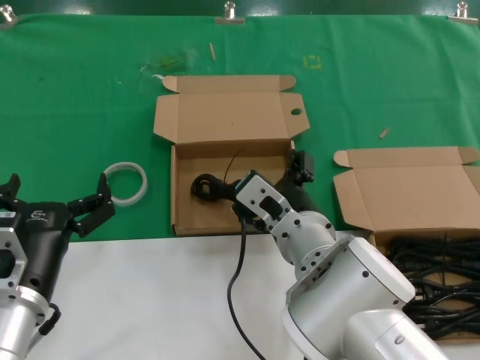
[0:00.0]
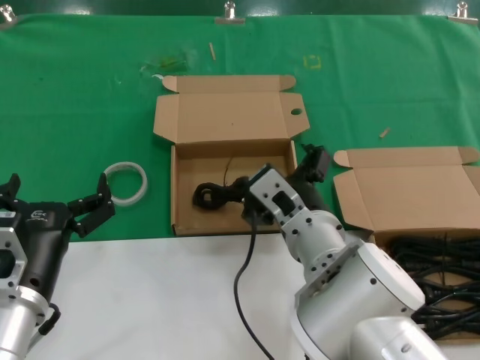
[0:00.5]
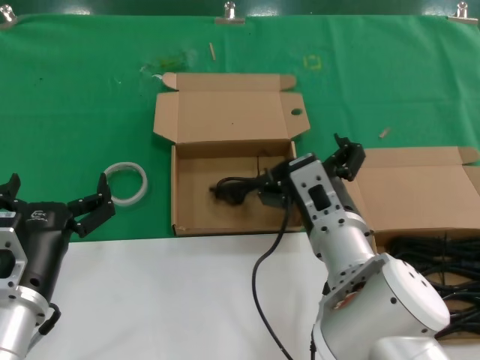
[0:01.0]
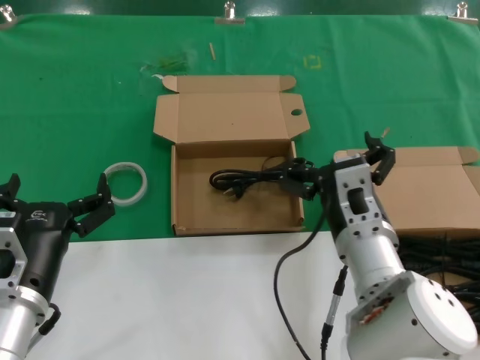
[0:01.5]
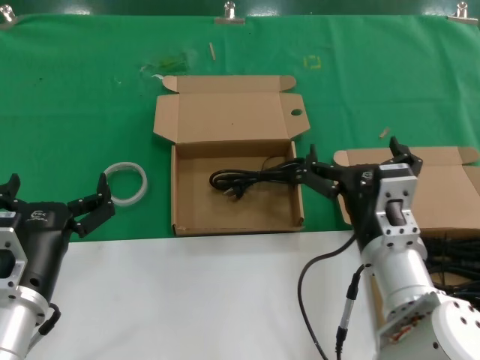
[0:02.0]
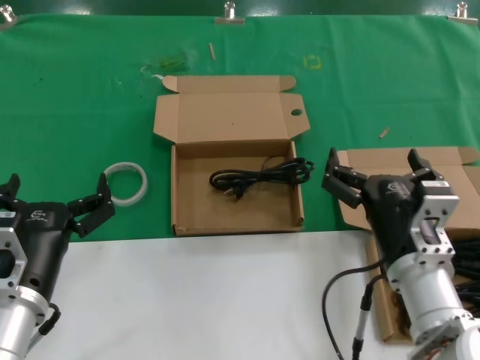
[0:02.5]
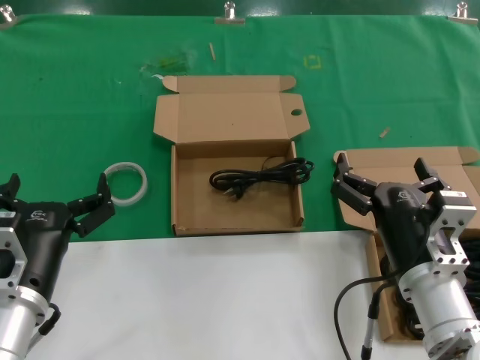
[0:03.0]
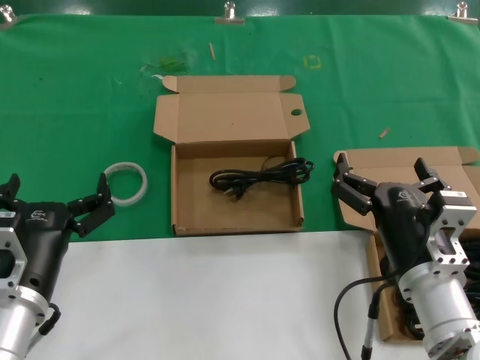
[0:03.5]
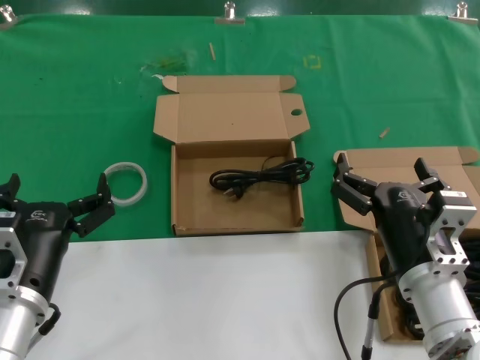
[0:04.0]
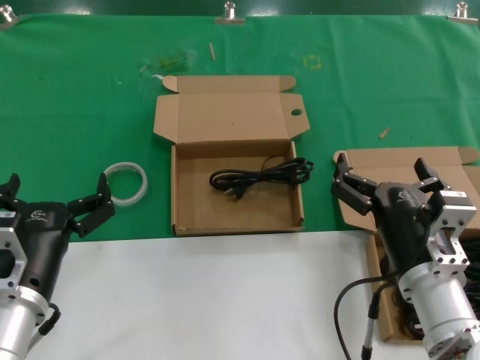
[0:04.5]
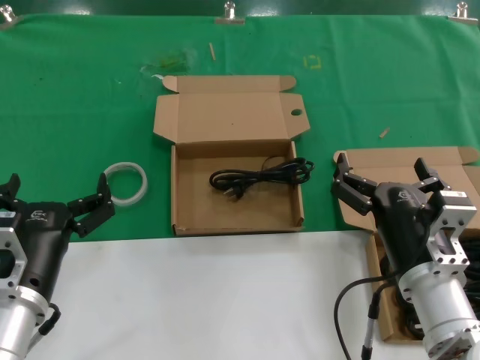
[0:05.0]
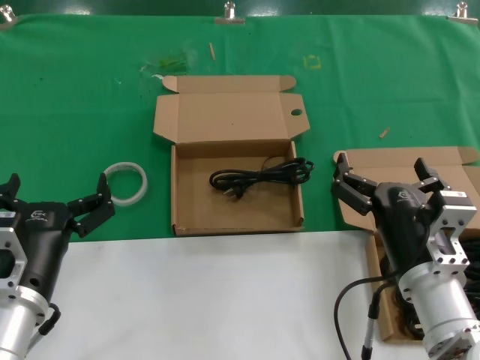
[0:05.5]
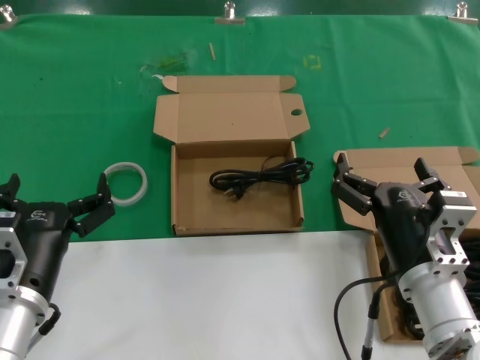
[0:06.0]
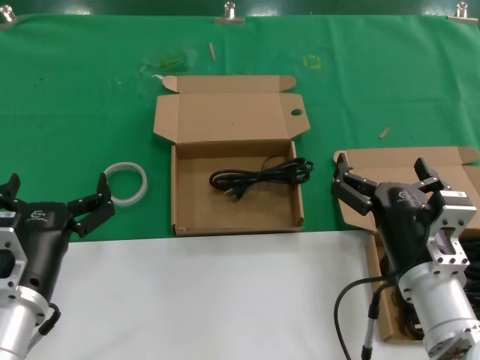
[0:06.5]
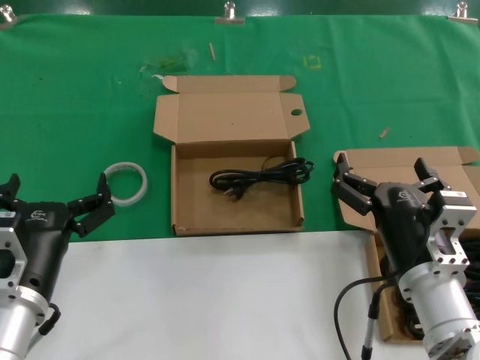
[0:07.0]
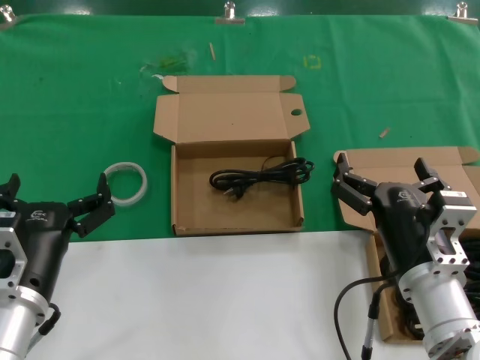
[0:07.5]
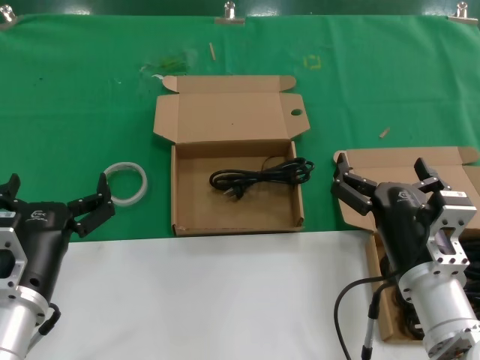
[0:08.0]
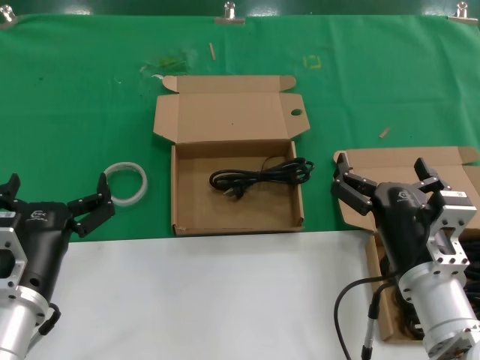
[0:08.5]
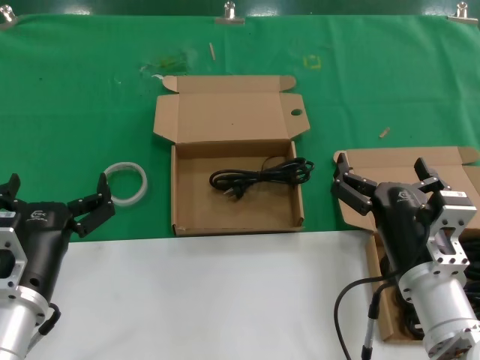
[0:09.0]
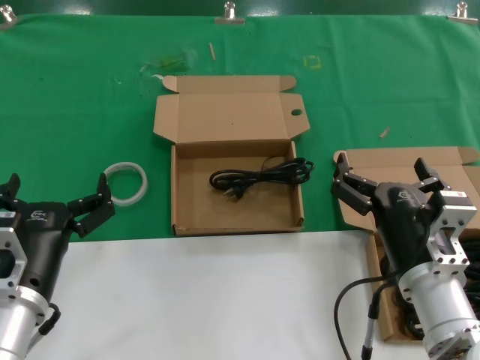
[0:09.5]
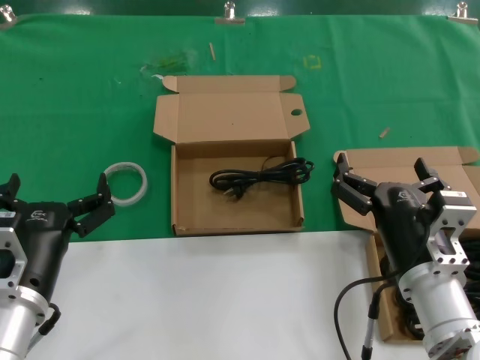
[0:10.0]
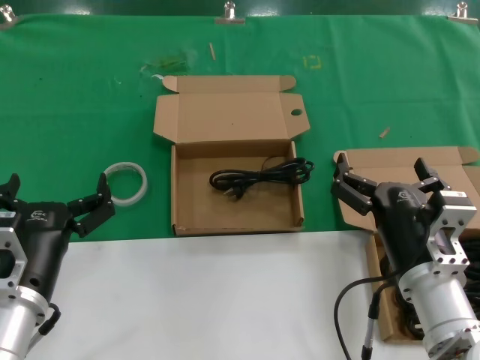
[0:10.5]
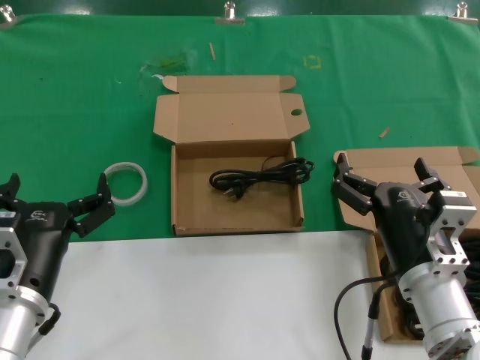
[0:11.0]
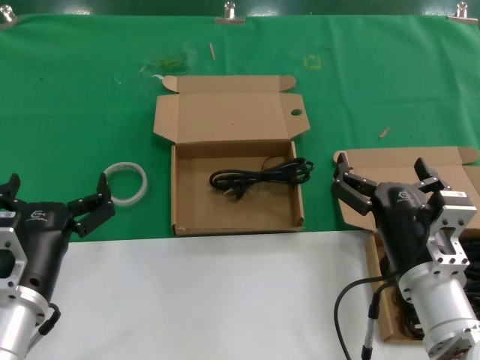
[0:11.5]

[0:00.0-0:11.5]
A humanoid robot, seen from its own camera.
Task of the whole recording: take the parts from the box containing them and put them into an empty box.
0:00.0 to 0:02.0: The right hand moves to the right, approximately 10 cm.
0:02.0 to 0:04.0: The right hand changes place by approximately 5 cm.
0:04.0 to 0:11.5: Both hands stay put.

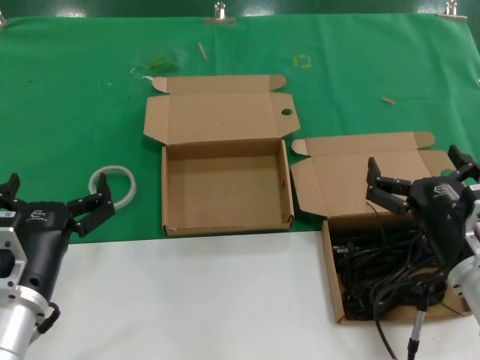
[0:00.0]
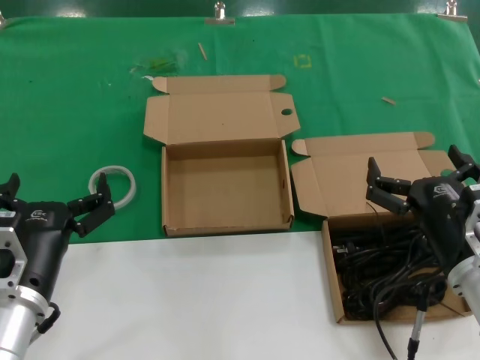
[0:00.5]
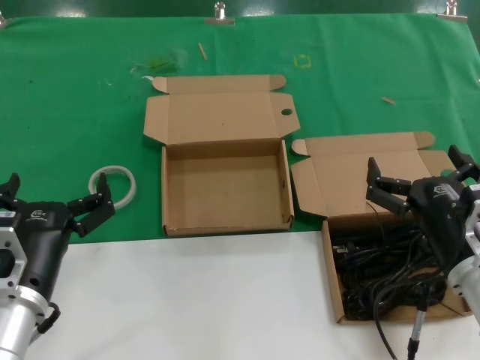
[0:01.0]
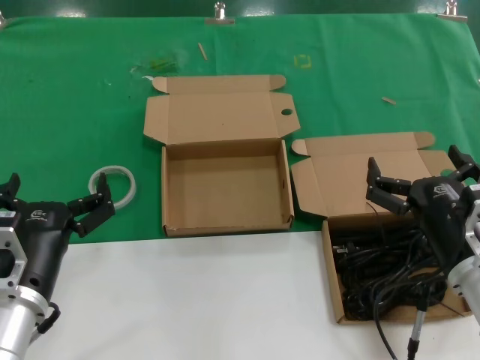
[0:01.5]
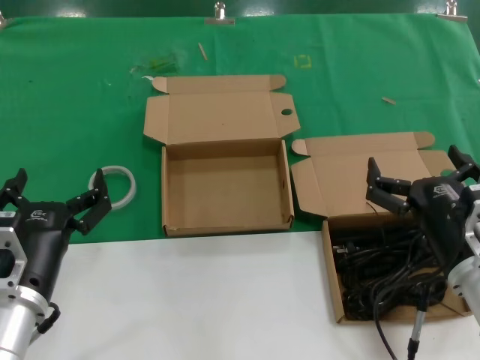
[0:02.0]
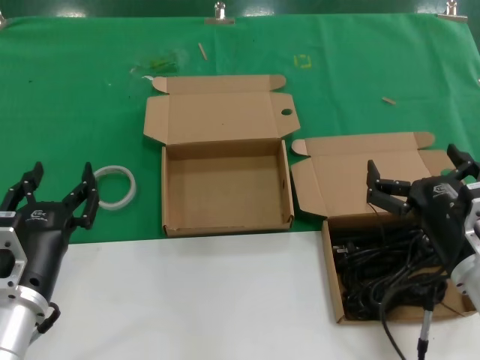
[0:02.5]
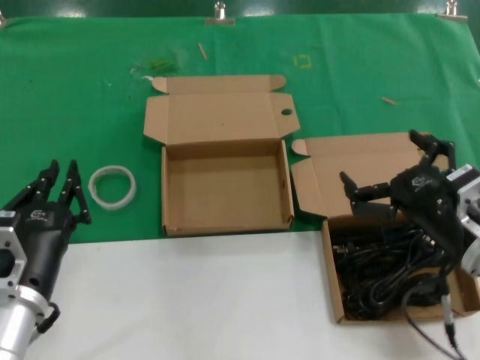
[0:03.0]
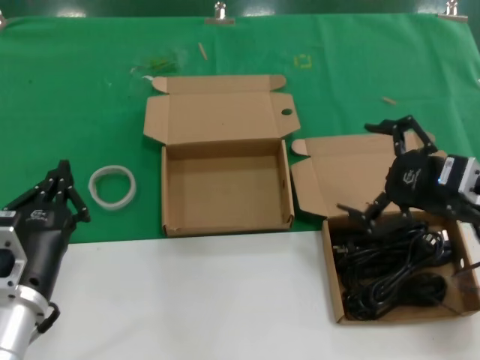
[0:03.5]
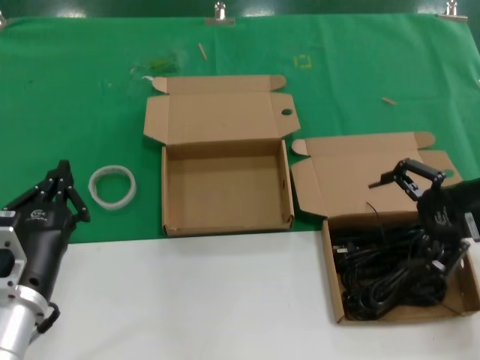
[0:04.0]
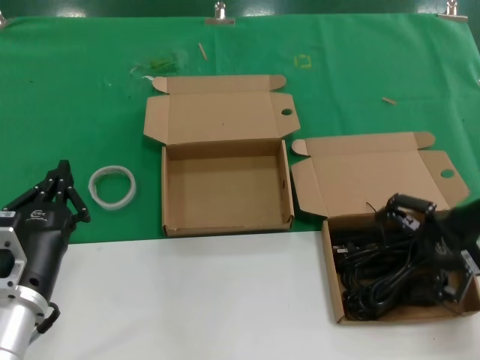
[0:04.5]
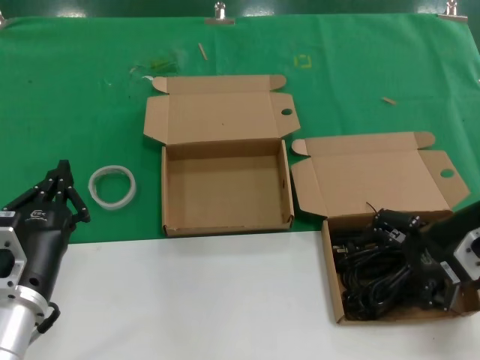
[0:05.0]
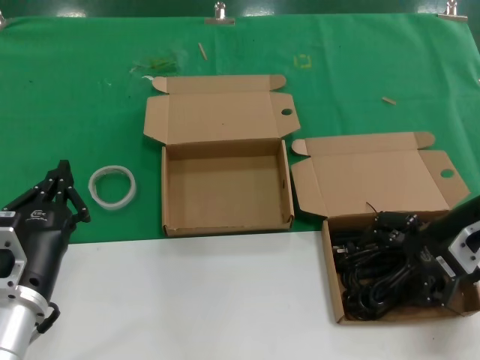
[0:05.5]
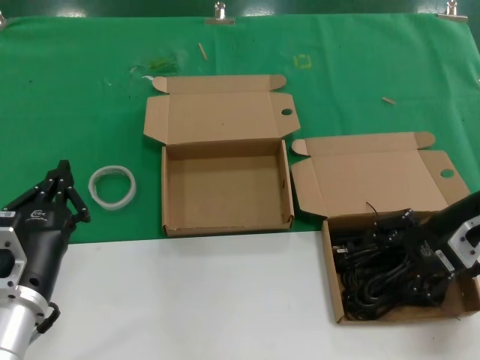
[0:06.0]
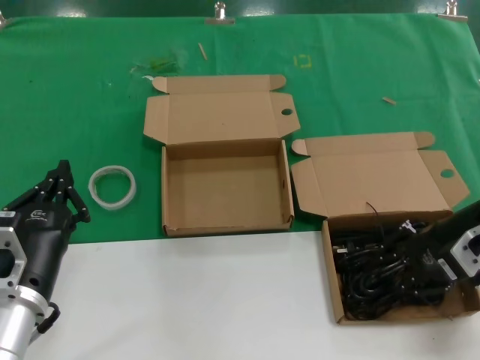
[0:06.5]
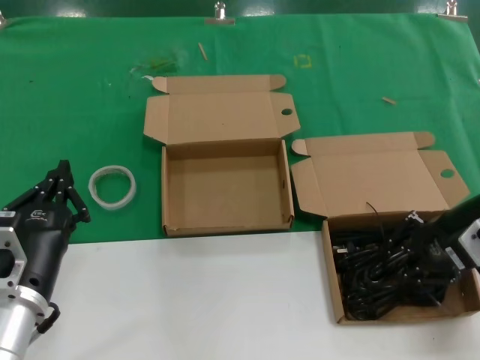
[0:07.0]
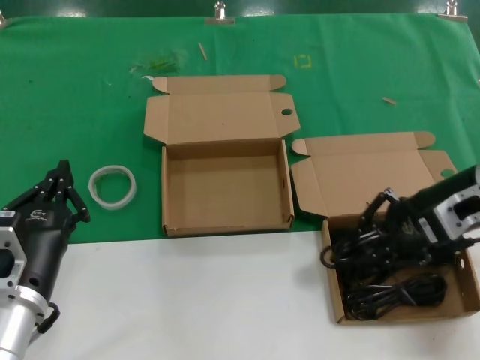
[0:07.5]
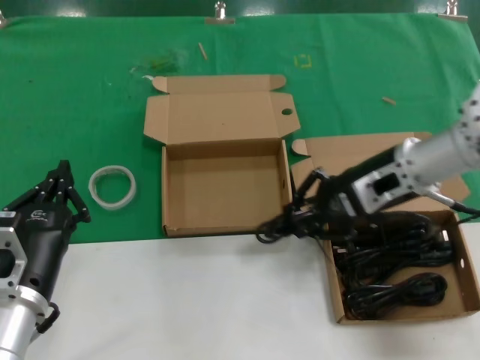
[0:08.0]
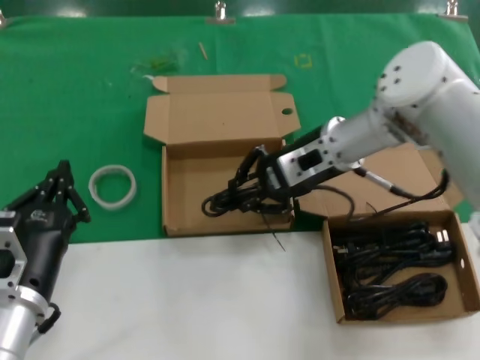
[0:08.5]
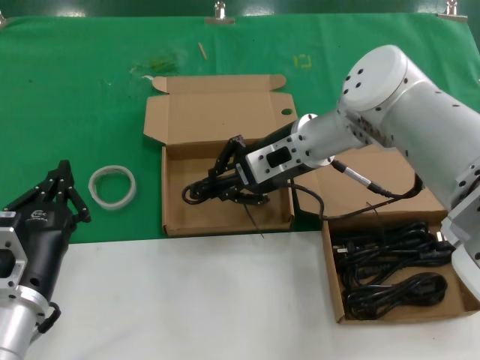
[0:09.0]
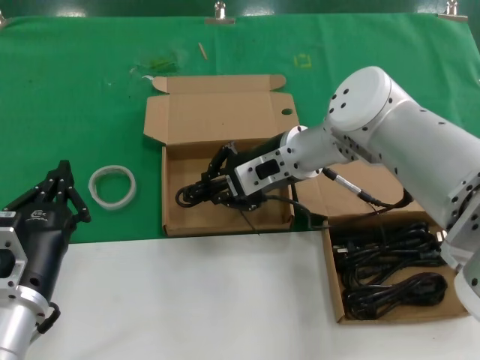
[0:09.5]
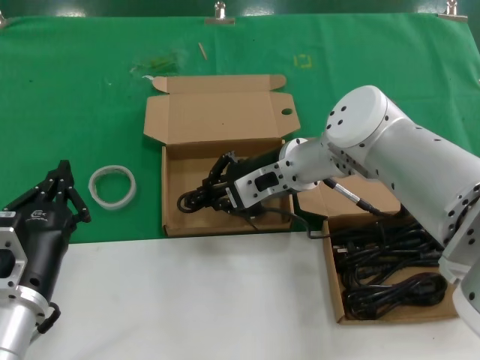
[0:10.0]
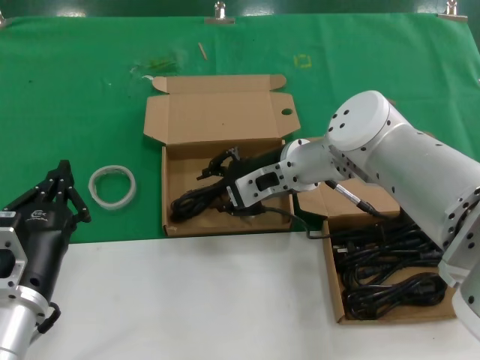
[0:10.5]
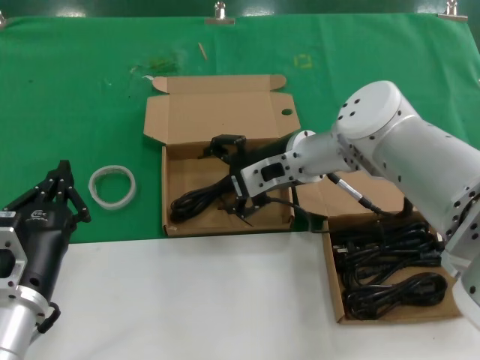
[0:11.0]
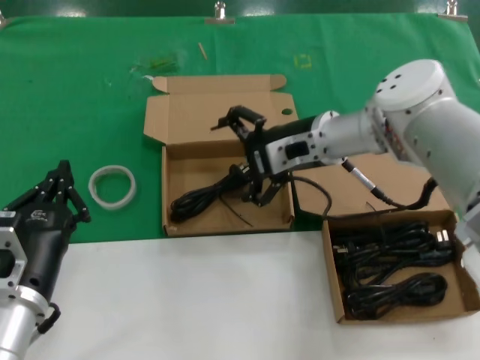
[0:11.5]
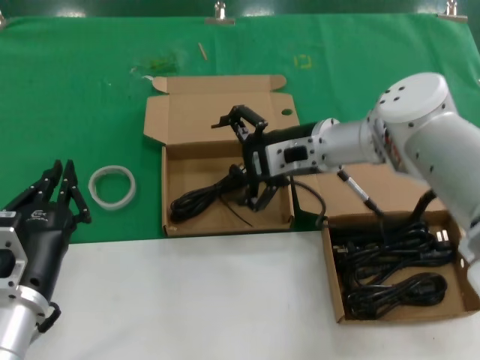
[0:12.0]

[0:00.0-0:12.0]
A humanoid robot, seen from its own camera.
Task of the whole recording: take the parts from the box containing them and put them into an empty box.
Step, 0:00.0 to 0:06.5: Grasp the data cable.
Step, 0:07.0 to 0:10.0: Place the data cable in the another box.
0:00.0 to 0:02.0: Both hands stay about where they are.
0:02.0 to 0:04.0: The right hand travels upward, to the right and forward by approximately 20 cm.
0:04.0 to 0:06.0: The right hand shifts by about 5 cm.
0:06.0 to 0:08.0: The right hand heads to the left, covering approximately 10 cm.
0:08.0 to 0:10.0: The right hand is displaced to the left by approximately 15 cm.
0:10.0 to 0:12.0: The right hand changes place by roughly 5 cm.

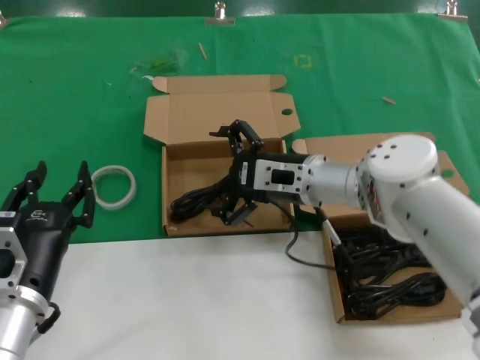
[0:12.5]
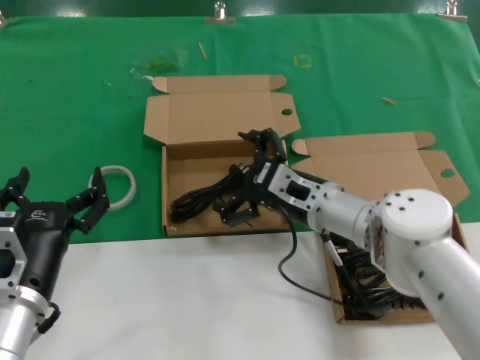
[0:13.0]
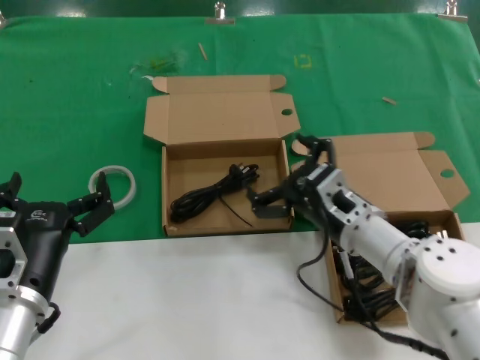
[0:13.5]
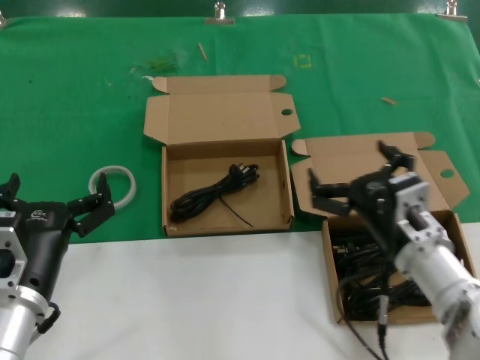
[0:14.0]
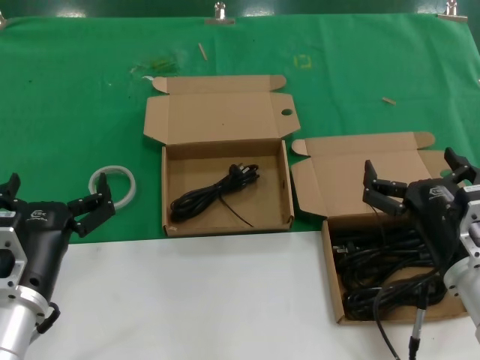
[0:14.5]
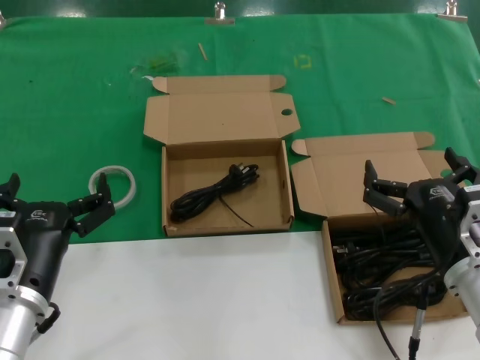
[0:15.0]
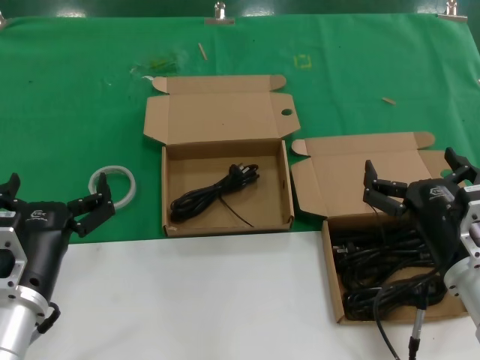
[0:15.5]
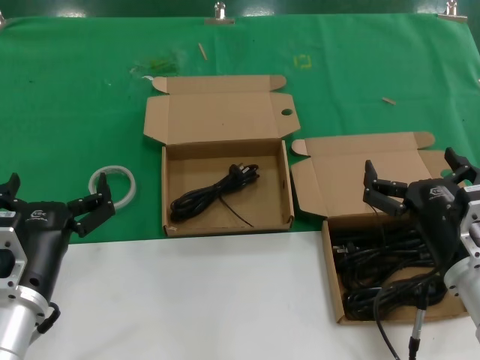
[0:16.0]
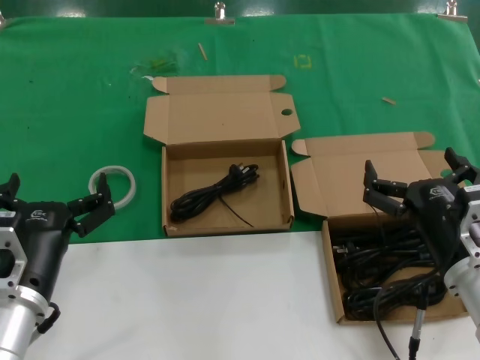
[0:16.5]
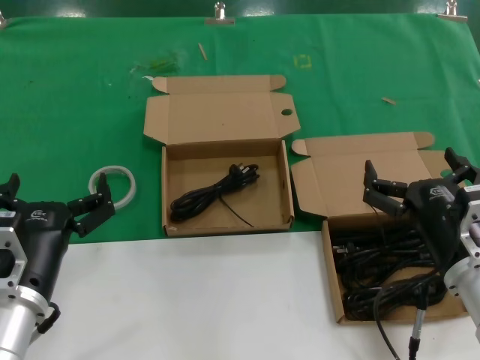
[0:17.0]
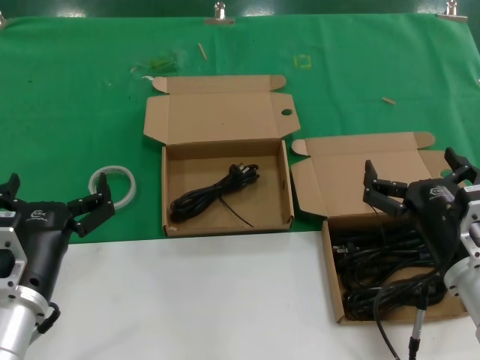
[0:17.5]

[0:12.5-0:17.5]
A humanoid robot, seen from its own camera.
Task of the whole recording: take the parts from the box containing them and put them into an empty box.
0:12.5 to 0:15.0: The right hand shifts roughly 25 cm backward and to the right.
0:15.0 to 0:17.5: Both hands stay about where they are.
